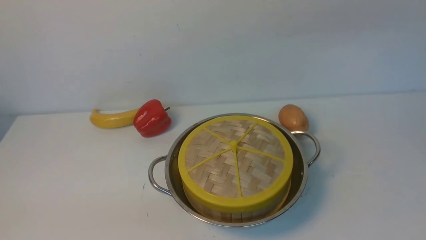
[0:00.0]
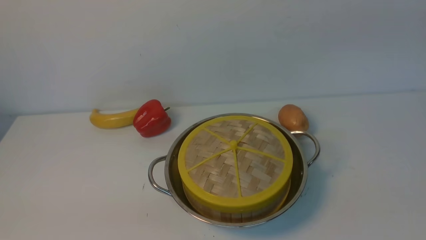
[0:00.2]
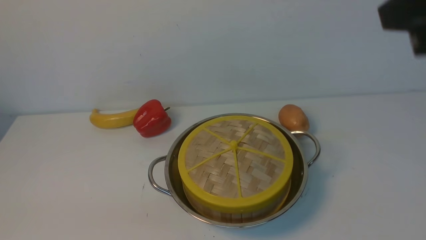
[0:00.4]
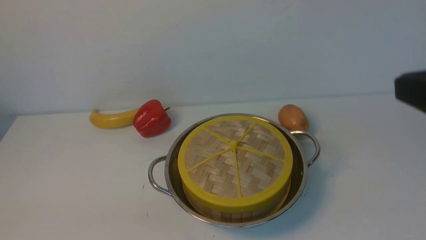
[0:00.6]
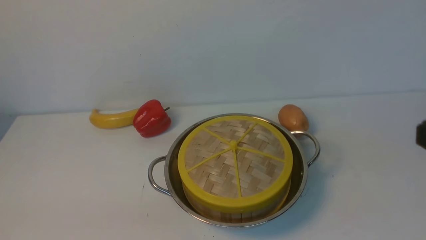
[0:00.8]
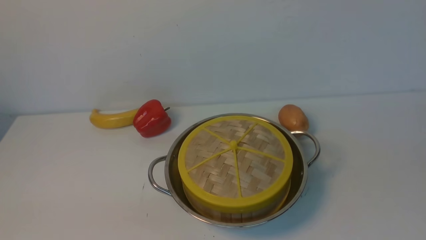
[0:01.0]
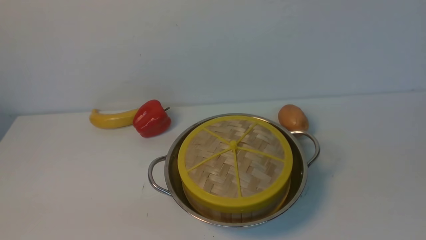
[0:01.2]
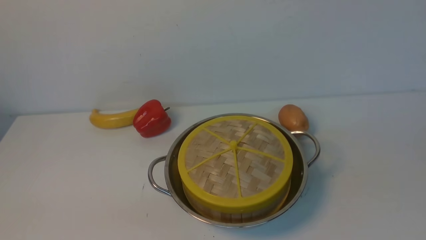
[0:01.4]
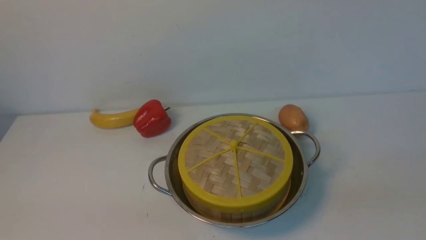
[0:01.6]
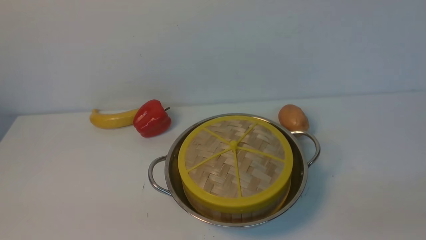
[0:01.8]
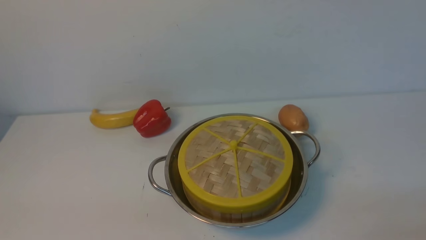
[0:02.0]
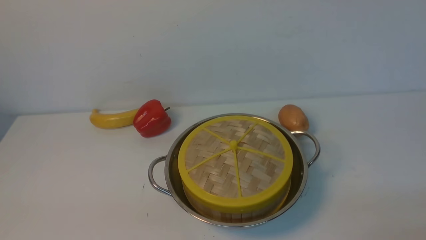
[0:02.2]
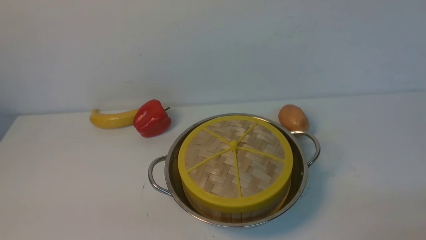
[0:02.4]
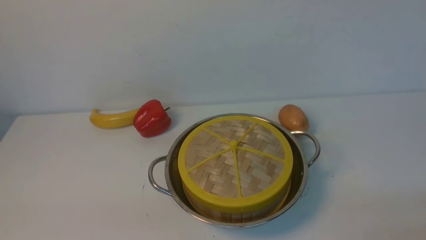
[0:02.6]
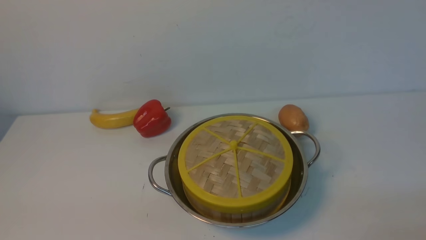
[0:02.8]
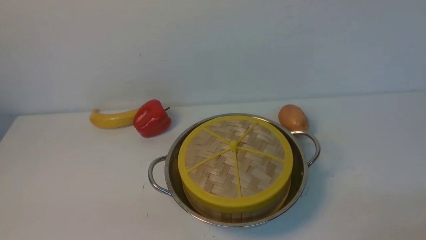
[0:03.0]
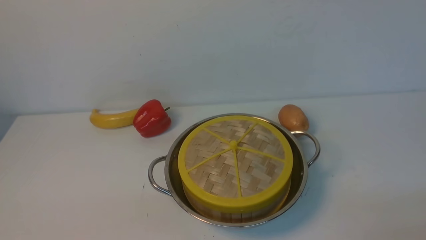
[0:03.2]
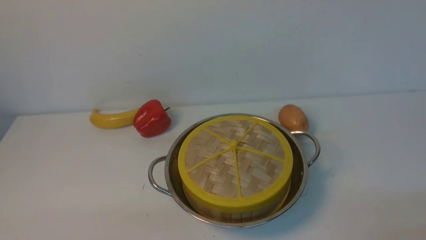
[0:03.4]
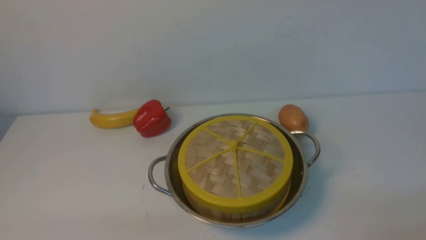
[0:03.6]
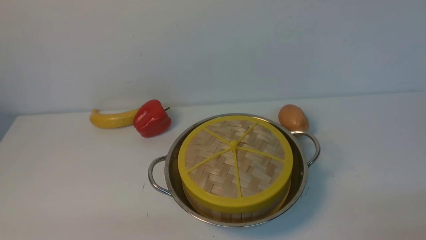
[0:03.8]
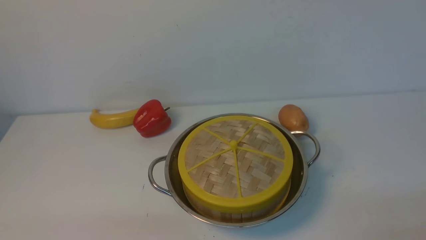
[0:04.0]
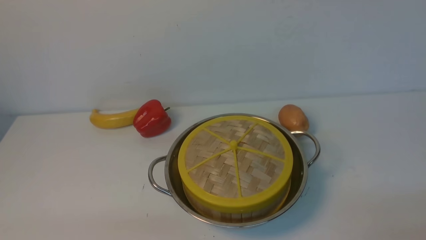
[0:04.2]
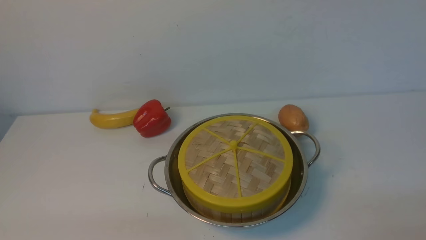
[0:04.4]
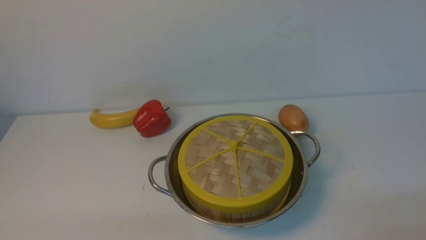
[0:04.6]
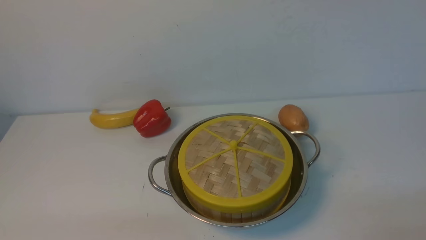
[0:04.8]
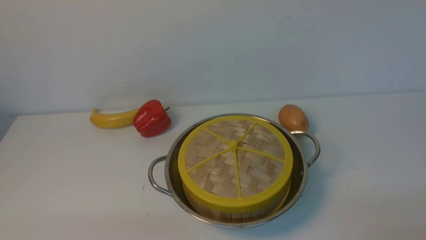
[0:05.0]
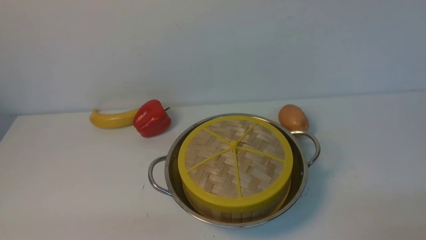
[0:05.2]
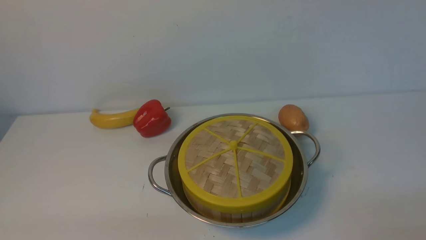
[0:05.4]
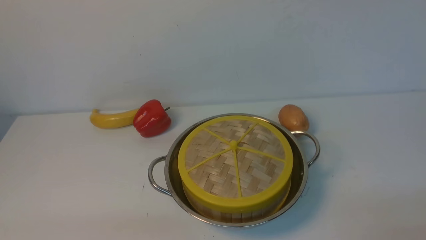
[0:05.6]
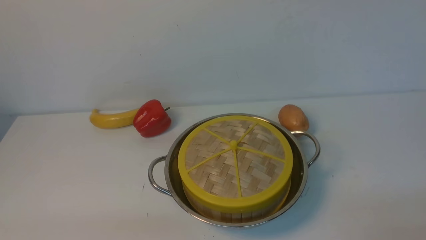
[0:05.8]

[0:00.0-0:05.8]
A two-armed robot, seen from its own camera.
Task of the whole recording: place the steamer in the pot on the white table, and put the lid on the steamer.
0:04.4 to 0:05.8: The two grippers keep their place.

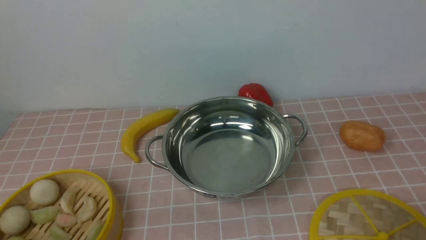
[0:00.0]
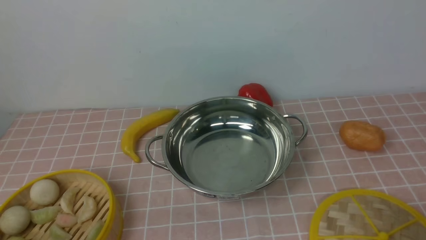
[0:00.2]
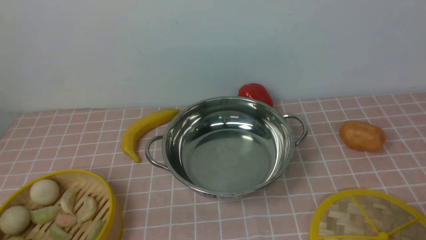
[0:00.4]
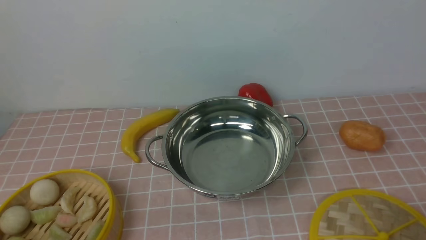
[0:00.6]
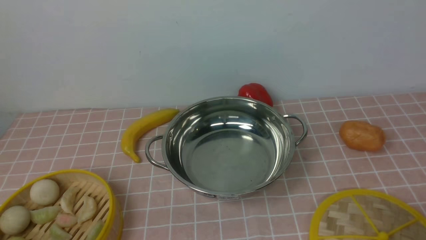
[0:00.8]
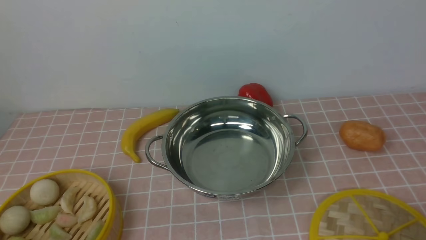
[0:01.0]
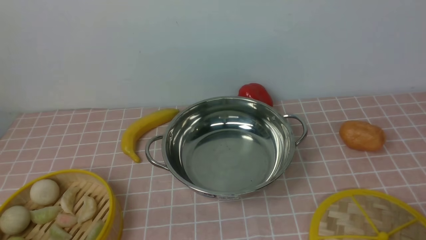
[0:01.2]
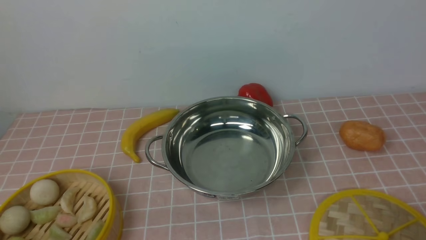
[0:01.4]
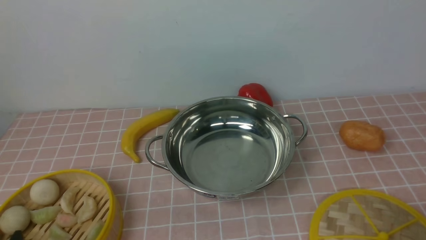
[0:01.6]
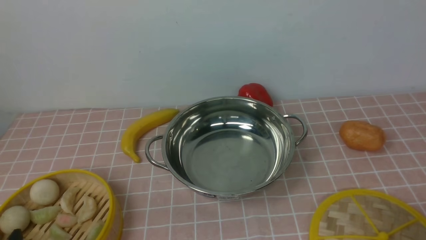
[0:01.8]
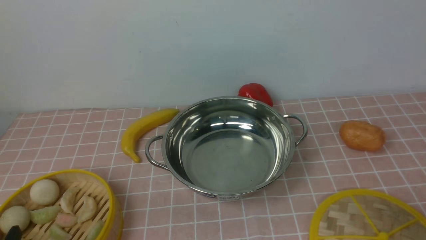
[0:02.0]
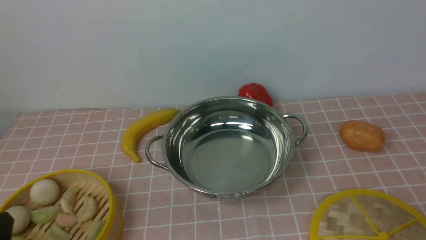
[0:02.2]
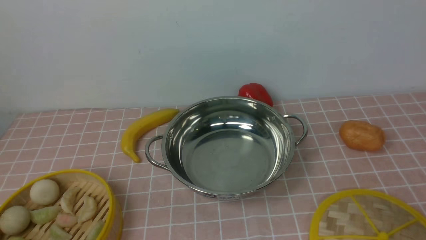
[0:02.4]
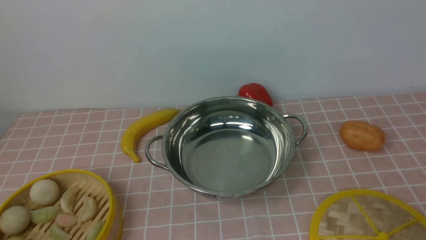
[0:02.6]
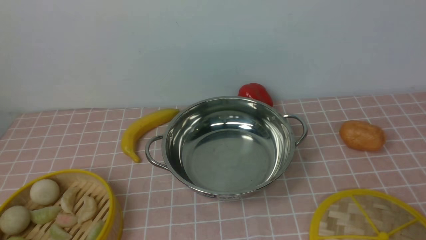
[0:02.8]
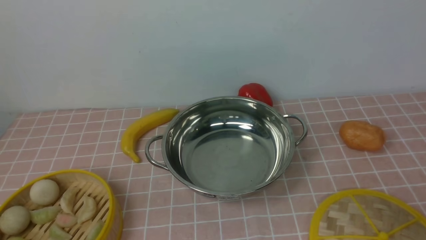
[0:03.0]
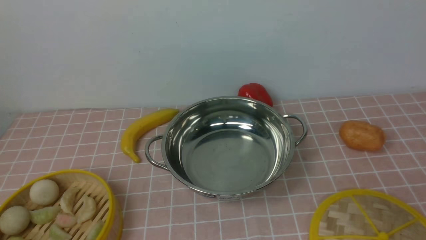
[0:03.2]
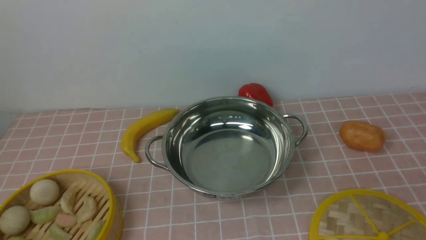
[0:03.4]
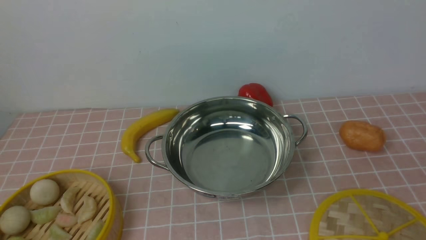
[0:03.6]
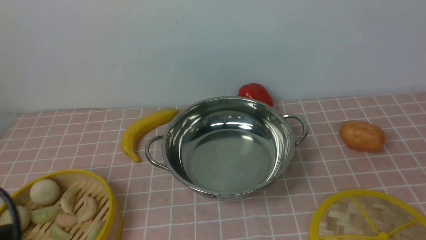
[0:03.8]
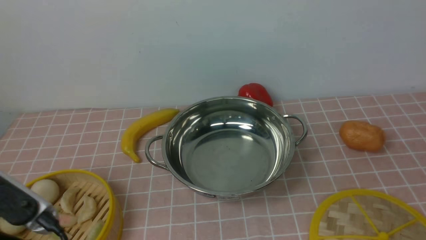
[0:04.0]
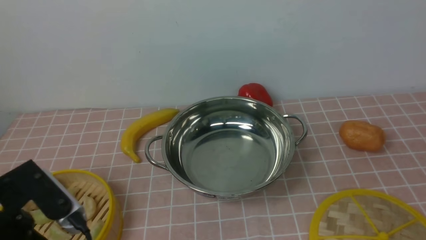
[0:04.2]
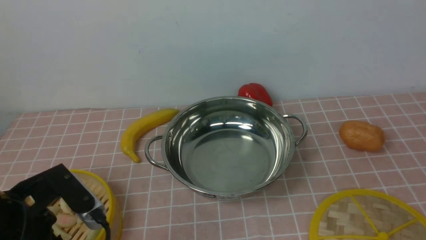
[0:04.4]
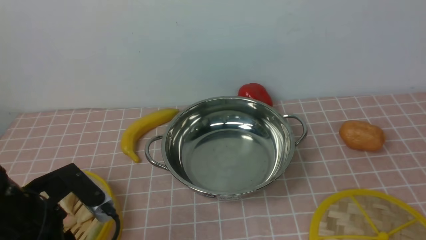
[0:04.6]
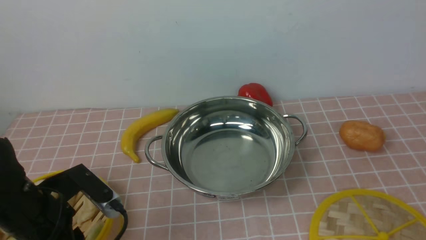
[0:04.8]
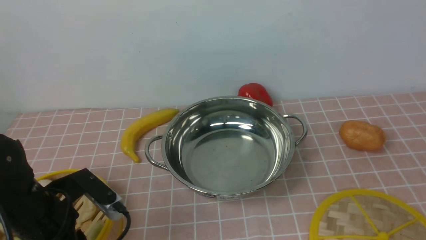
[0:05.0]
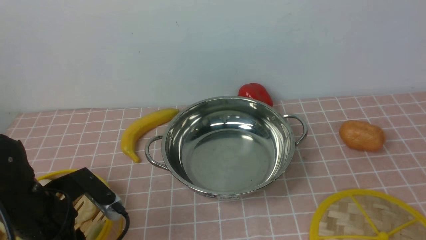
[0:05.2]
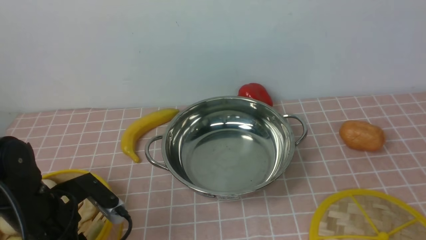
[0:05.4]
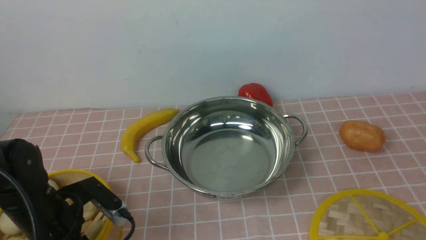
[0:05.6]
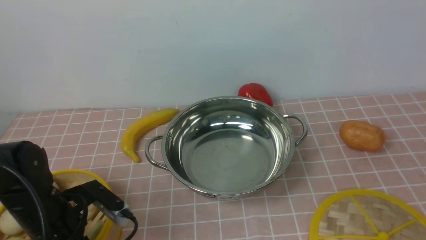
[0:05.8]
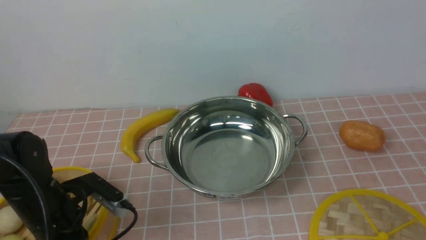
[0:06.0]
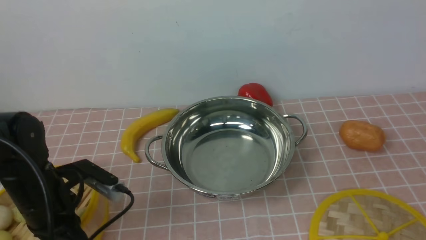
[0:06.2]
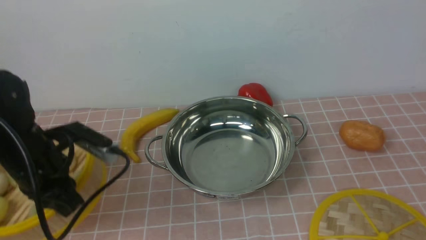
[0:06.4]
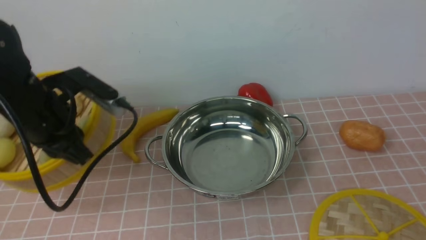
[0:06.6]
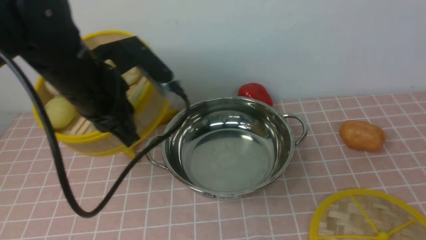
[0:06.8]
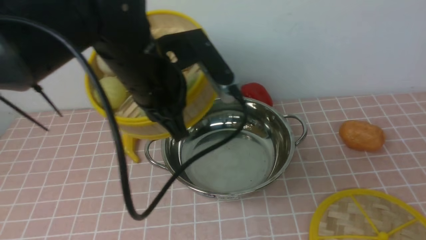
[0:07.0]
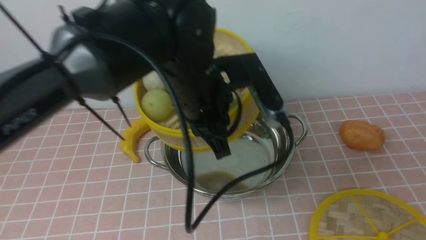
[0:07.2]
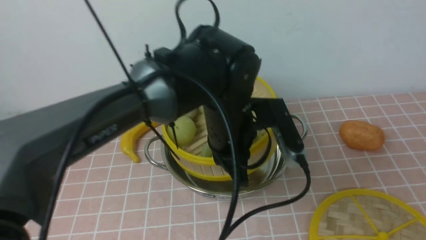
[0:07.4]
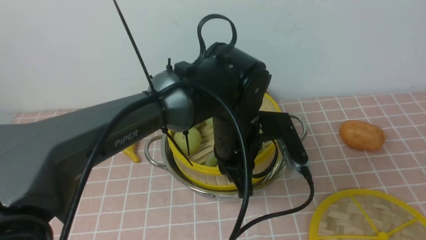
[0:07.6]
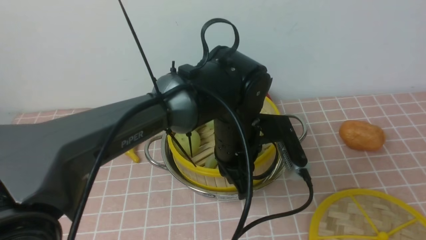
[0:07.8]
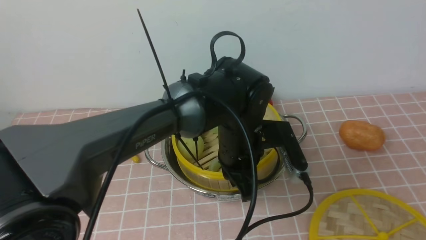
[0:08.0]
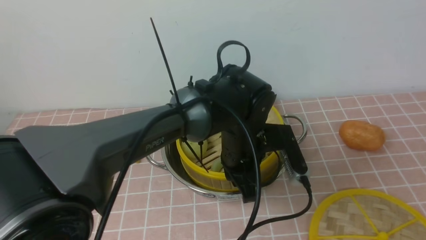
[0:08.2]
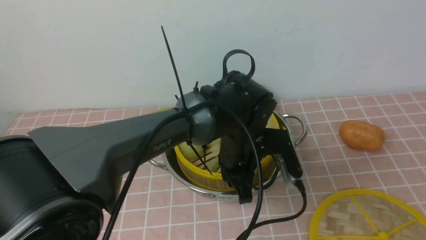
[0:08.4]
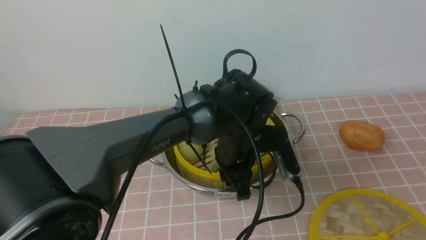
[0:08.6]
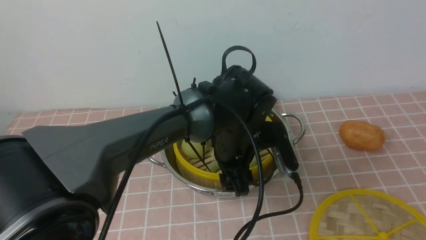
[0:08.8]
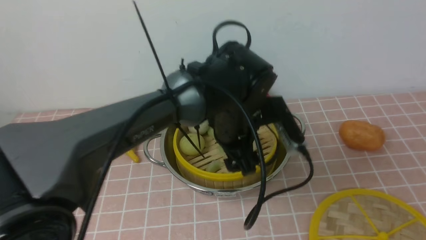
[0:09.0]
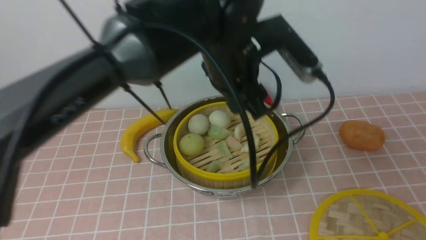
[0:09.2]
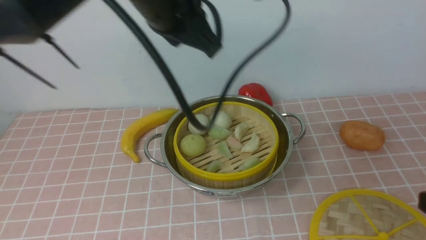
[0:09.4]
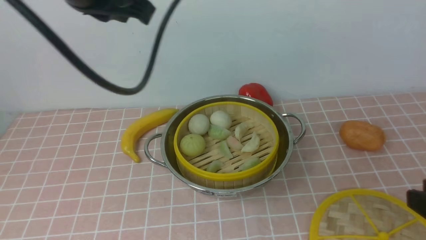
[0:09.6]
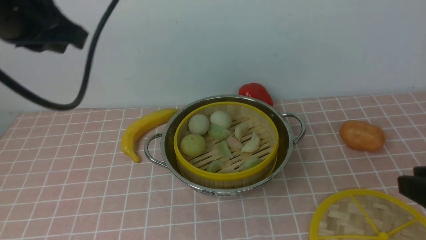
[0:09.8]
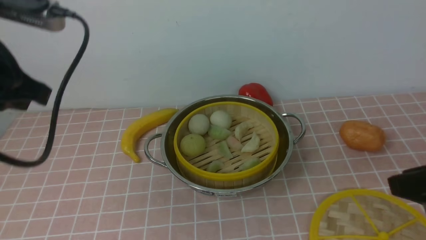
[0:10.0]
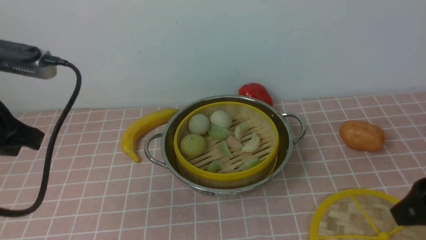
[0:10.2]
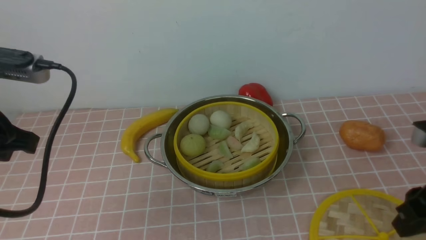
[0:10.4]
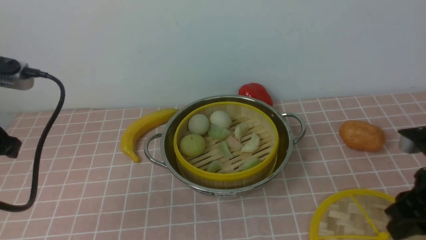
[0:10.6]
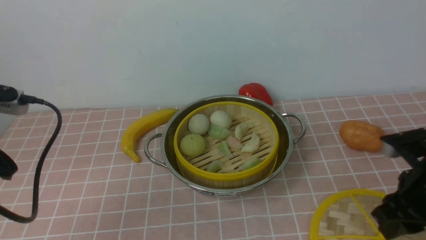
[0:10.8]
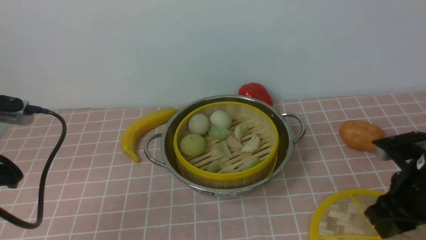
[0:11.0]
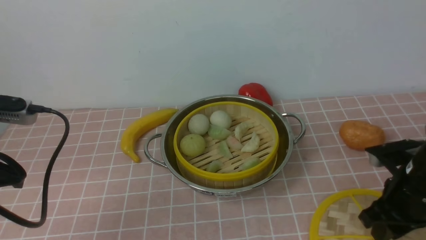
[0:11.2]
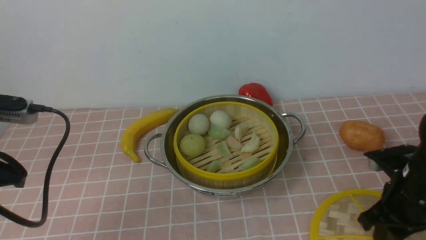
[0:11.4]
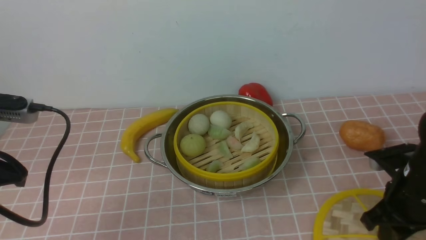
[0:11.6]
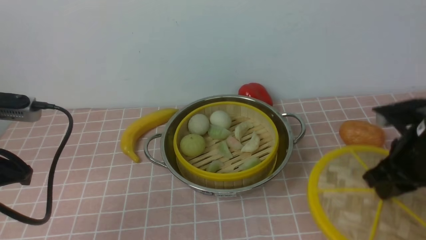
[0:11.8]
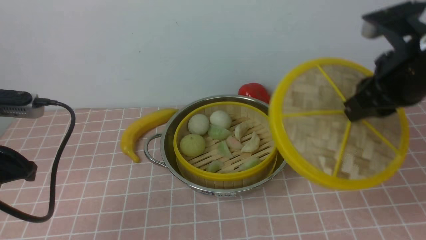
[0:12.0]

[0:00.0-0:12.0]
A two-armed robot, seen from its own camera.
Task of the whole recording: place the steamer in the pot on the pink tablecloth, and put the lid on the steamer.
Step, 0:00.0 to 0:06.2: use the left arm to lift the steamer closest to it.
Step, 0:06.4 to 0:08.8: use the left arm to put the steamer into the iron steamer pot in the middle.
Step, 0:09.0 to 0:11.6: use the right arm to lift the lid of the steamer.
0:00.0 to 0:01.6: The two grippers keep their place.
0:03.0 to 0:04.4: The left gripper travels forward by some 10 cm.
0:04.4 to 0:06.0: The left gripper is displaced downward and forward by roughly 10 cm, and closes.
0:06.0 to 0:07.6: The left gripper moves to the right, approximately 25 cm.
0:07.6 to 0:09.0: The left gripper opens.
0:09.0 to 0:10.4: The right gripper moves forward, about 15 cm, while the left gripper heads to the left and backward, covering about 30 cm, and closes up.
0:10.4 to 0:12.0: The right gripper travels forward, upward and to the left by approximately 15 cm, and closes its fingers.
